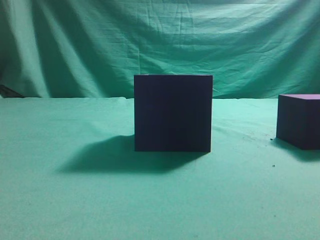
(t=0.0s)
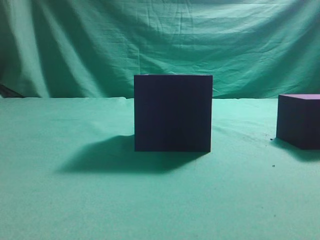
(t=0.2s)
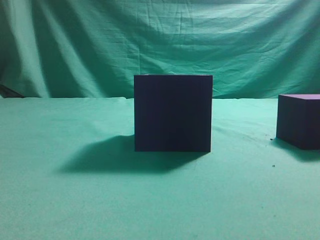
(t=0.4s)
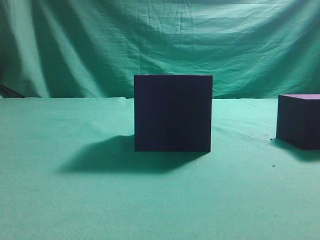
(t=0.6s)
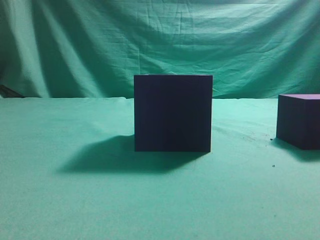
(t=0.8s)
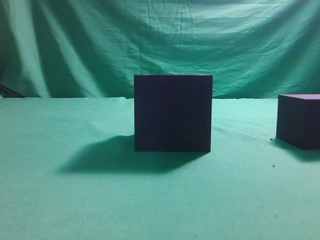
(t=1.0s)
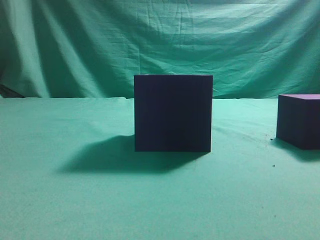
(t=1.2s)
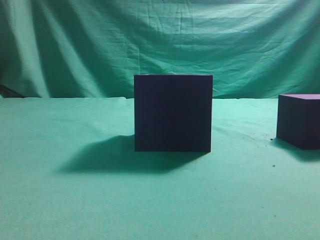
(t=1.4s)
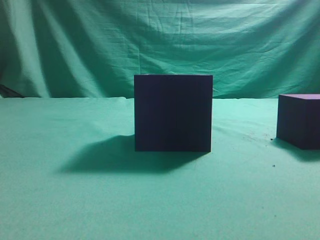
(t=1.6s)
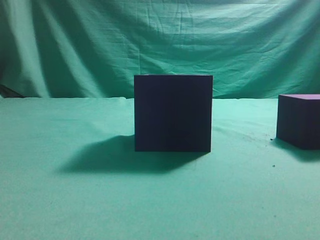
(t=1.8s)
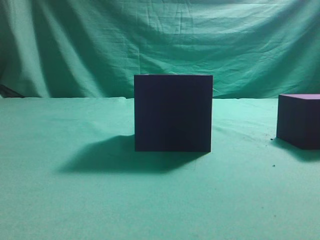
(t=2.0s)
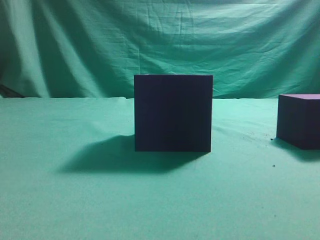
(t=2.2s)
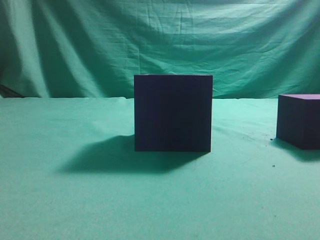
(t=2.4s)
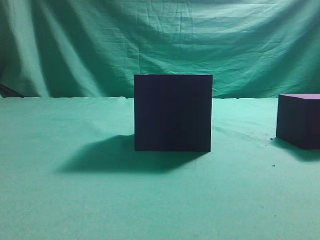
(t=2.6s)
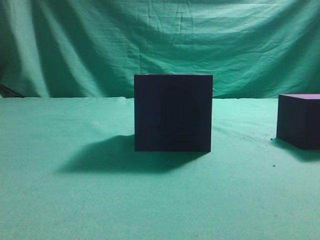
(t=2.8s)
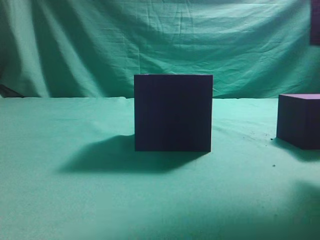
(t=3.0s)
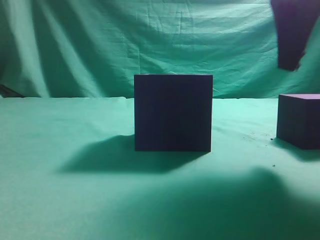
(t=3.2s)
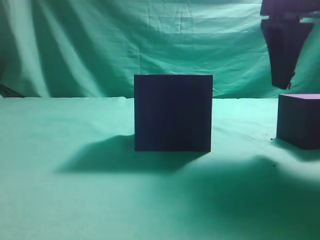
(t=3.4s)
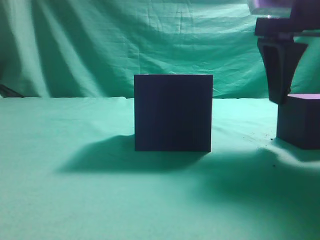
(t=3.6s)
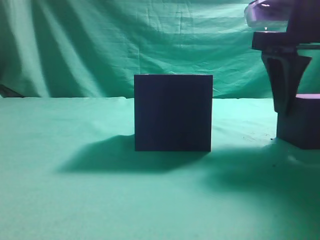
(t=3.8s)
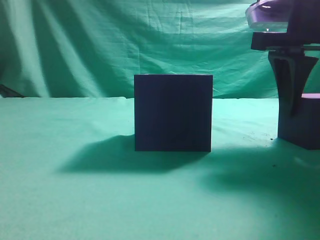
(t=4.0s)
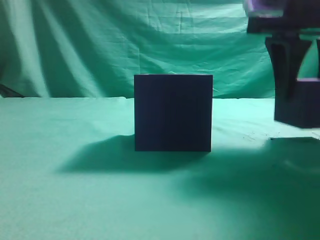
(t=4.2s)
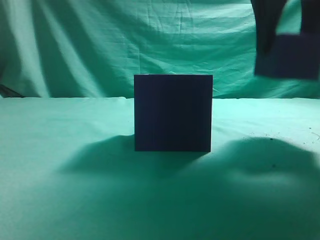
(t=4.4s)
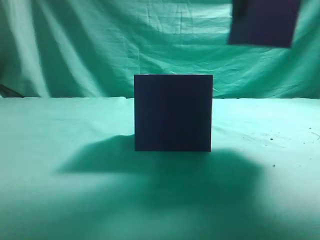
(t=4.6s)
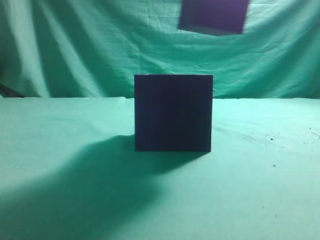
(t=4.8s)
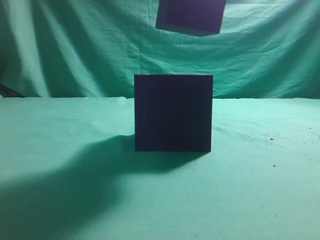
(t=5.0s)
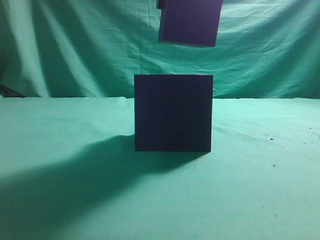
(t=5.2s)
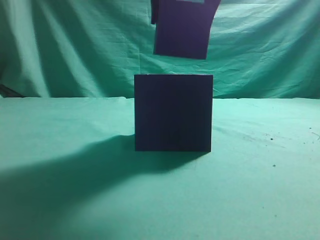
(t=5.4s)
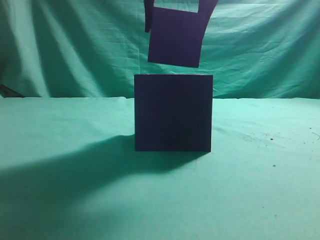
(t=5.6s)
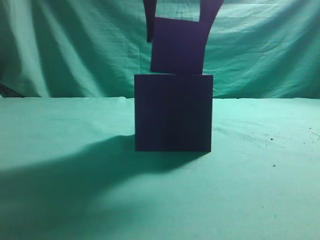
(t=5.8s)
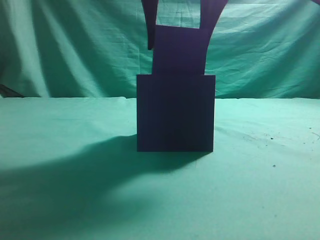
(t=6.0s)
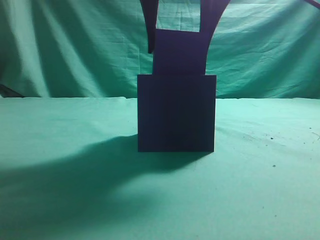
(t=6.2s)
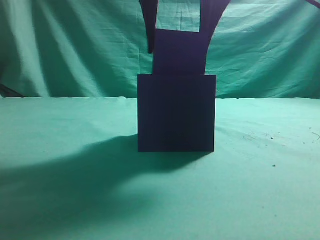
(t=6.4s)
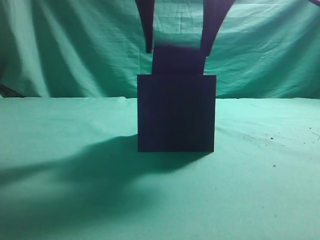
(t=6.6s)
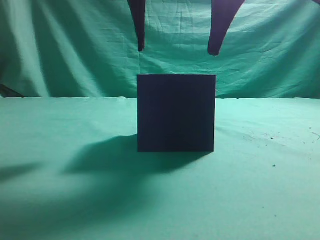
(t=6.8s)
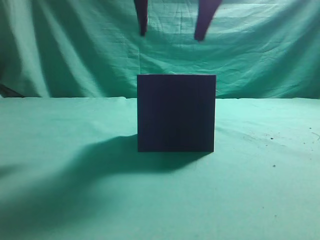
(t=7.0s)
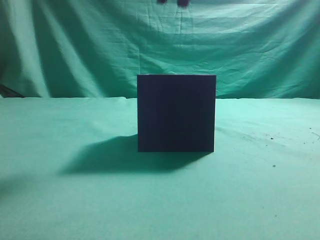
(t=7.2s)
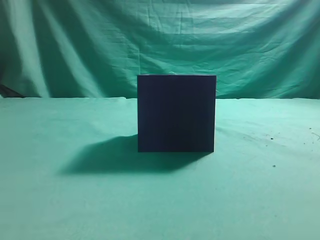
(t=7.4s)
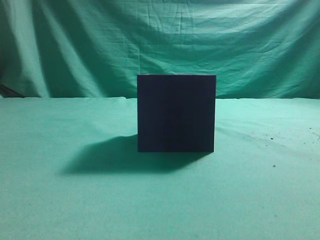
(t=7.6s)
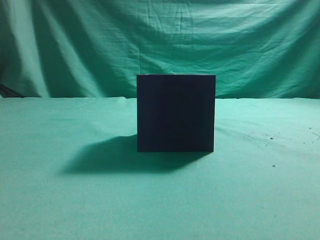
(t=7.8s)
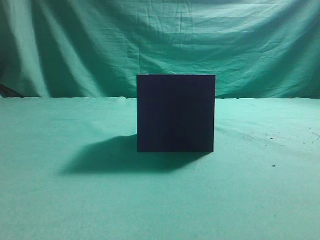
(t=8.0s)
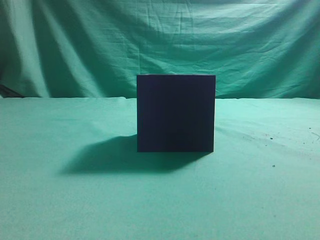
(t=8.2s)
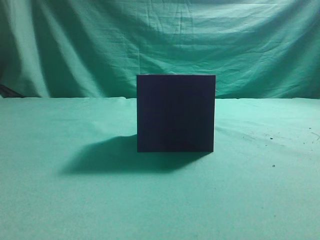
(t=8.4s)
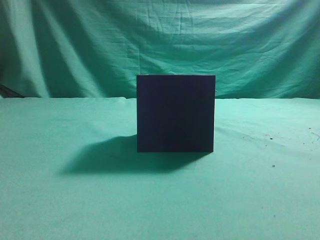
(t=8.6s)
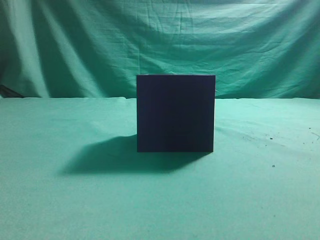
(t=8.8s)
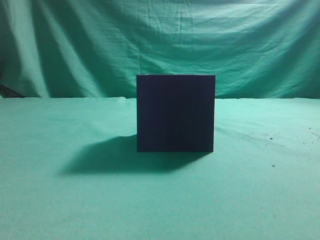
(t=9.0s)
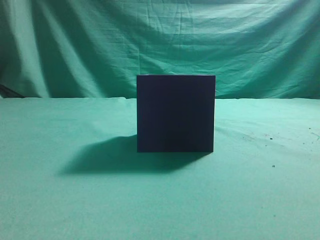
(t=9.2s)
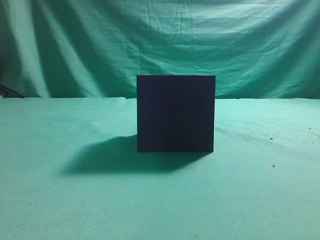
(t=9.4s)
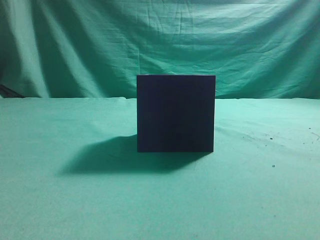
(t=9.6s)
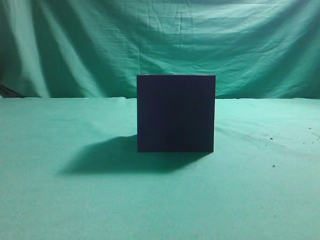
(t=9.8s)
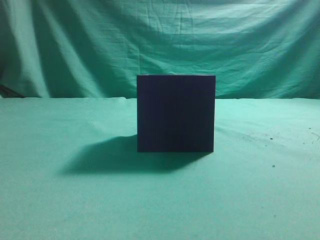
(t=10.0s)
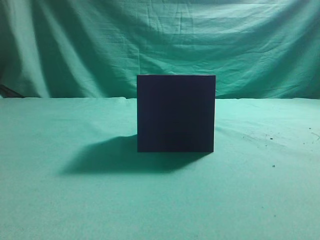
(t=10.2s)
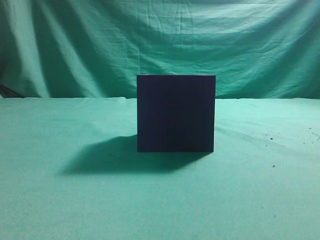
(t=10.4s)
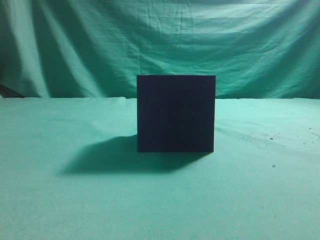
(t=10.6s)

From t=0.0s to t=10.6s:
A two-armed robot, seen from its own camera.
Task of the whole recording: pick up the cube block and place it into the cube groove.
Step, from t=0.0s to t=4.2s: Grasp the cube.
Step, from t=4.4s to t=6.6s: Place cube into the cube-shaped recess.
From t=1.6s to t=3.0s: The right gripper heads forward and to the left, covering roughly 20 cm.
From t=3.0s to t=4.6s: The right gripper shifts about 10 cm to the left and forward, and opens up.
From t=4.6s to t=6.0s: The right gripper heads to the left, covering approximately 10 cm.
From t=6.0s to t=7.6s: The right gripper travels upward, backward and to the right by approximately 15 cm, and closes.
